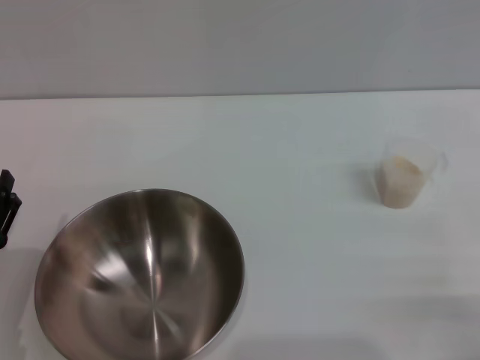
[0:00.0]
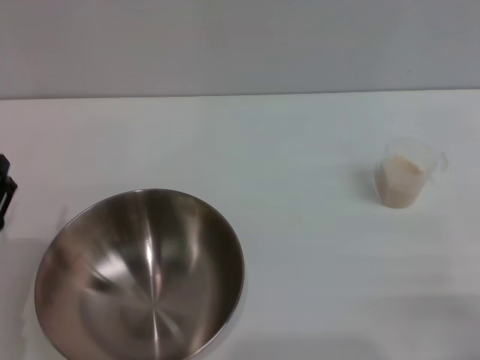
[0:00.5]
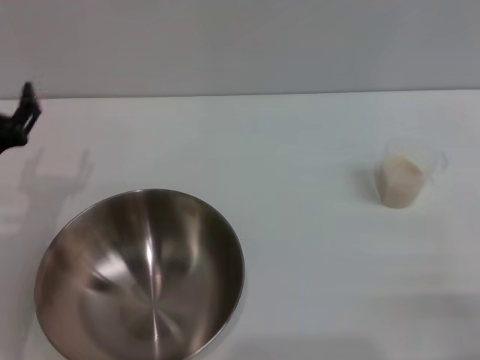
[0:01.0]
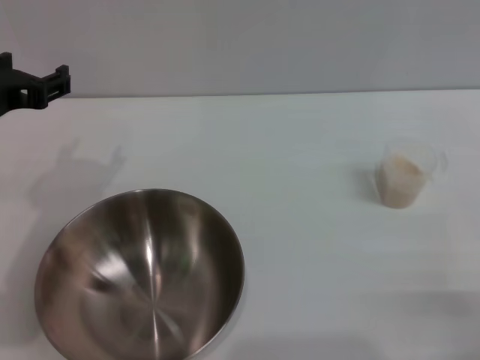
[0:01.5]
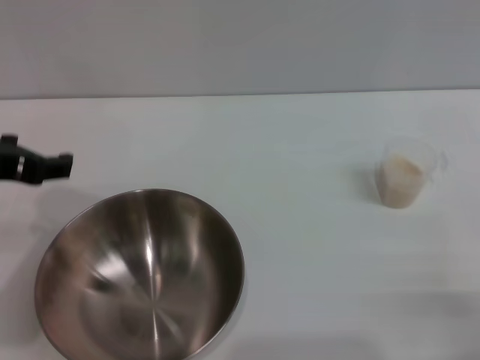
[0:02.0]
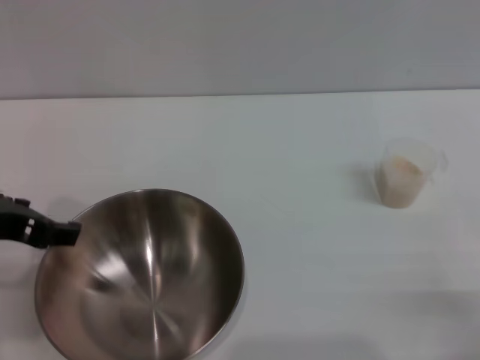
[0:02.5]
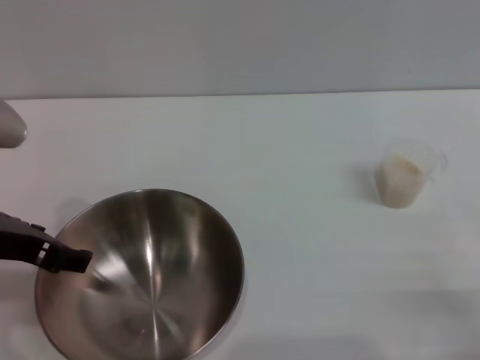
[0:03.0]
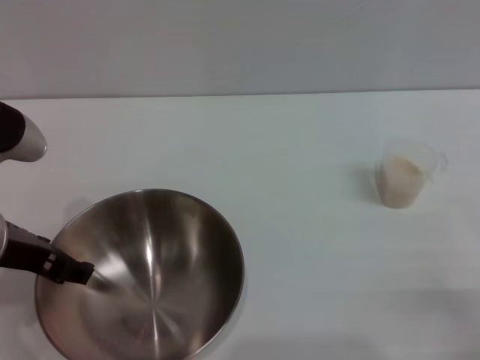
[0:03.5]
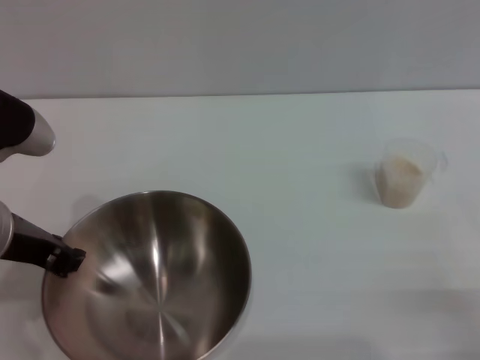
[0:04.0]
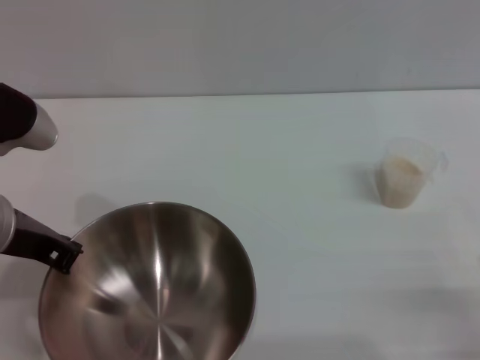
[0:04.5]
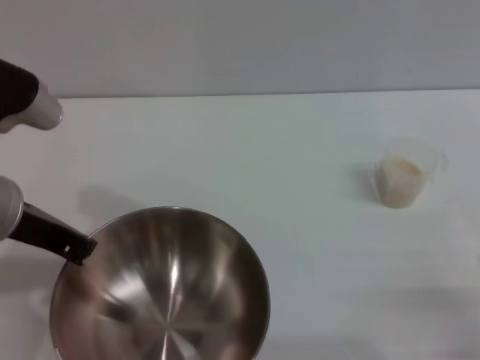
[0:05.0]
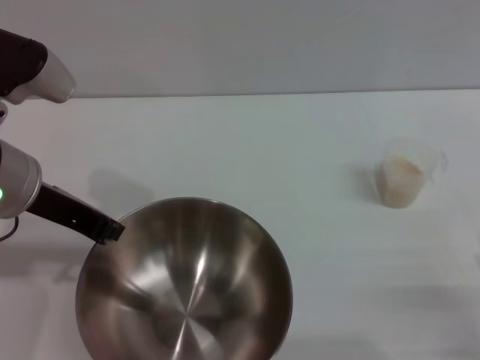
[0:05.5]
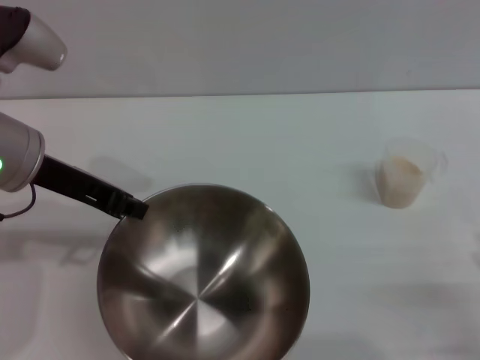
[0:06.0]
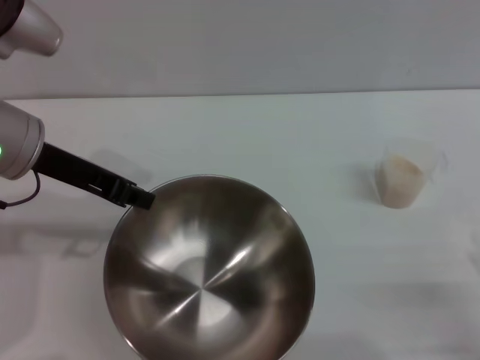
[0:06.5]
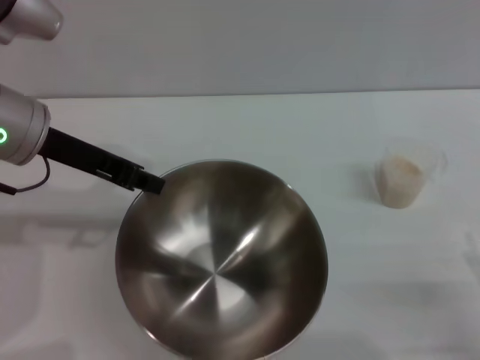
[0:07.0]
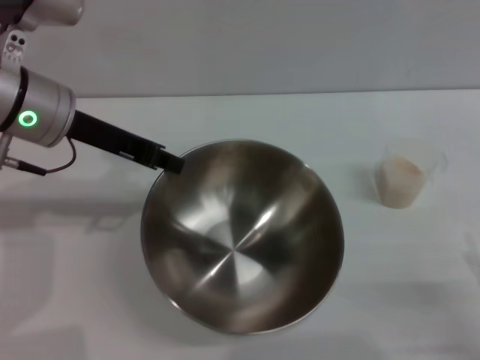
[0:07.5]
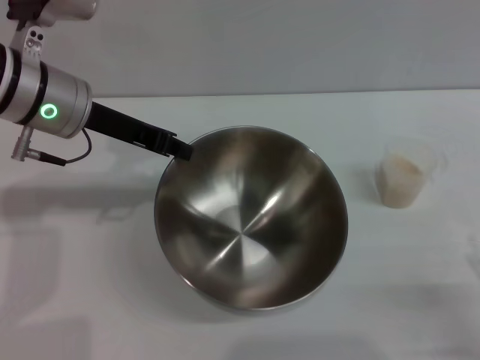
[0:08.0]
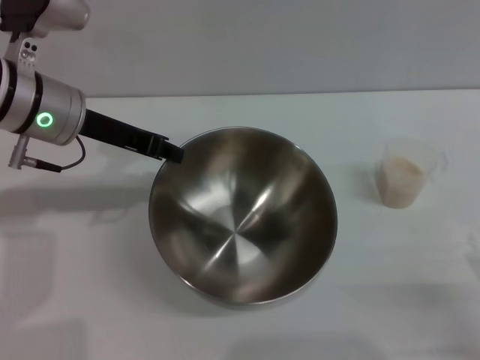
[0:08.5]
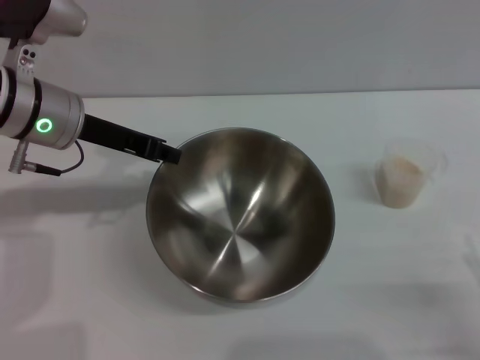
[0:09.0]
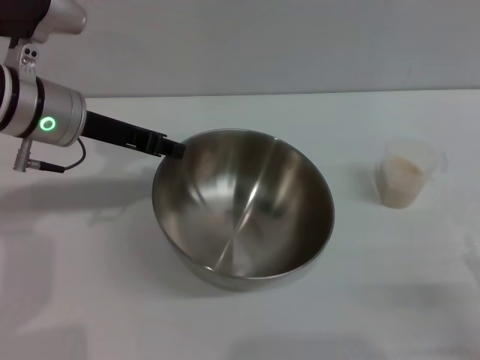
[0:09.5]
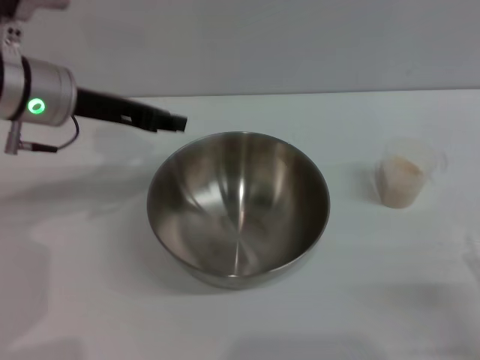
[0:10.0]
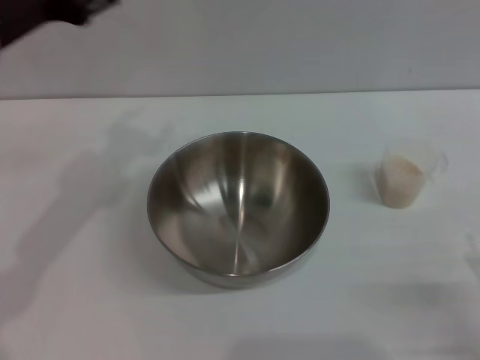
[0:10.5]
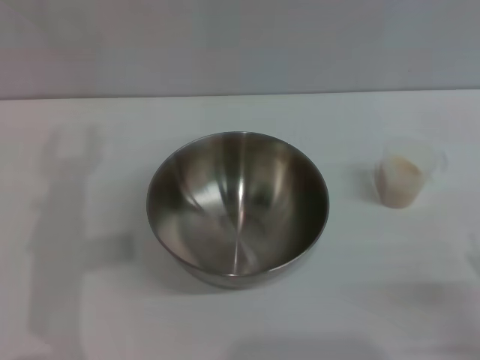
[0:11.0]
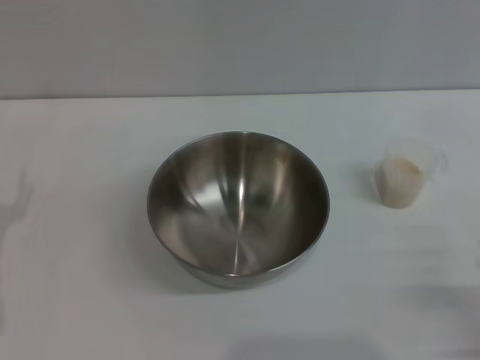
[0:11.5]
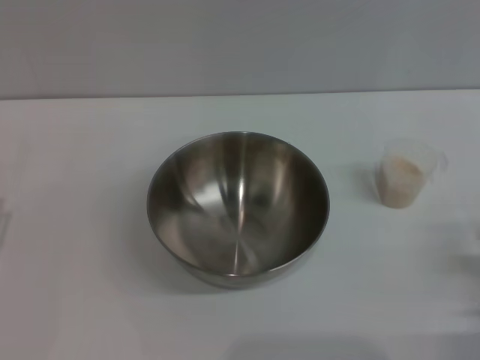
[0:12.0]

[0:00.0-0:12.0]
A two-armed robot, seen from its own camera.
Task of the whole recording: Place the bowl in the middle of the table with one hand and pour the rice from the grain cup into it with the other hand.
Step, 0:00.0 to 0:06.0: Pick up the bowl with the left gripper.
Step, 0:06.5 to 0:09.5: Place the bowl in the center of view with the left gripper.
0:00.0 to 0:02.0: The left gripper moves upward, about 20 cm.
0:04.0 to 0:06.0: The left gripper shifts some 5 cm forward, and closes.
0:06.0 to 0:08.0: The left gripper shifts roughly 5 cm forward.
0:08.0 to 0:10.0: The grippers make only small movements.
0:10.0 to 0:12.0: The left gripper travels backward, downward and to the left by about 25 cm, and opens up; the right gripper ends up approximately 5 cm from where it was.

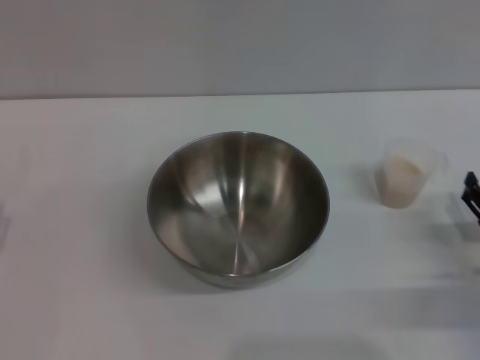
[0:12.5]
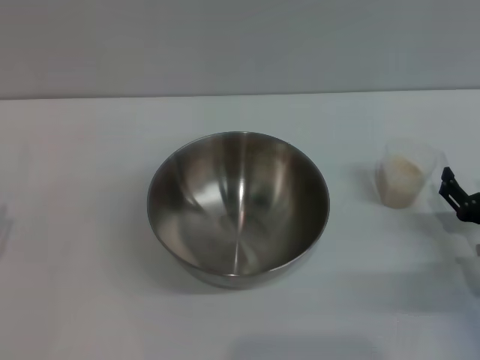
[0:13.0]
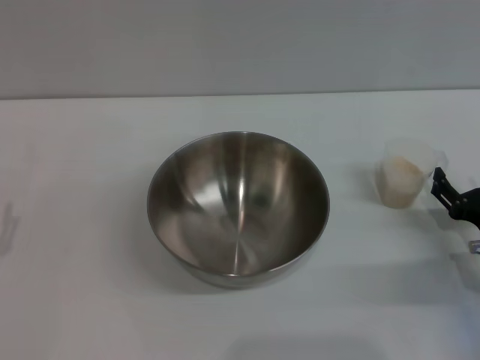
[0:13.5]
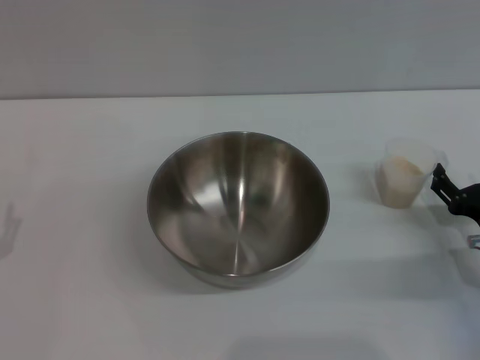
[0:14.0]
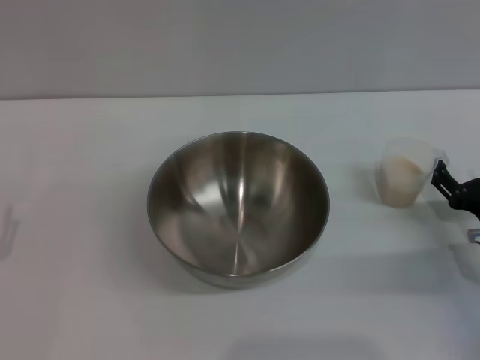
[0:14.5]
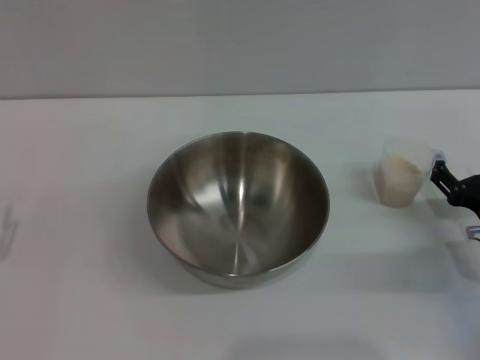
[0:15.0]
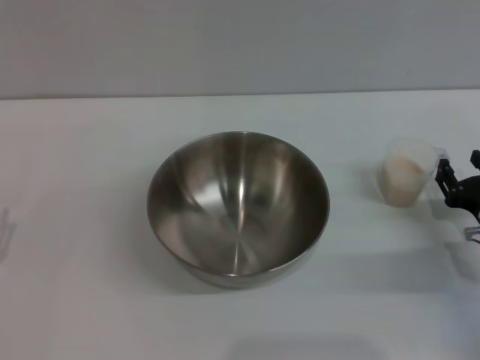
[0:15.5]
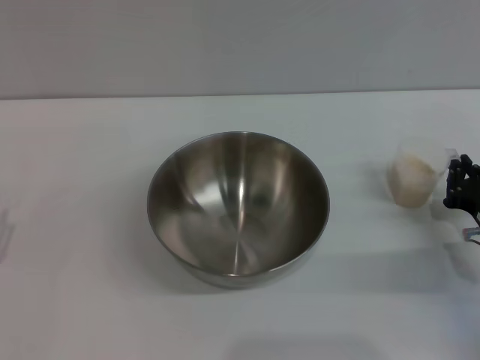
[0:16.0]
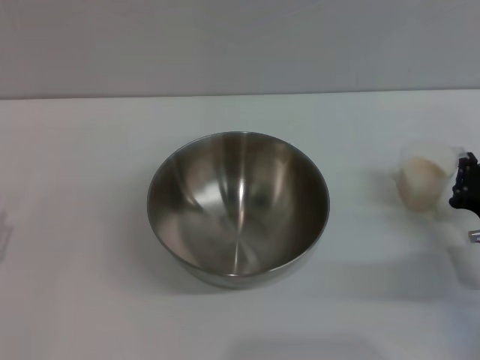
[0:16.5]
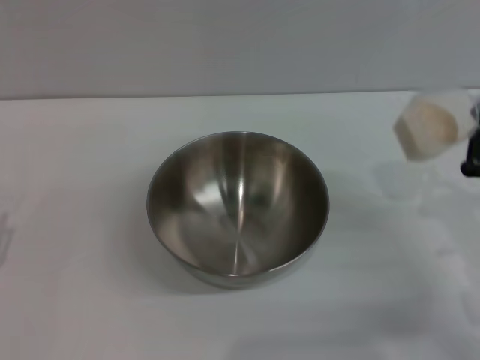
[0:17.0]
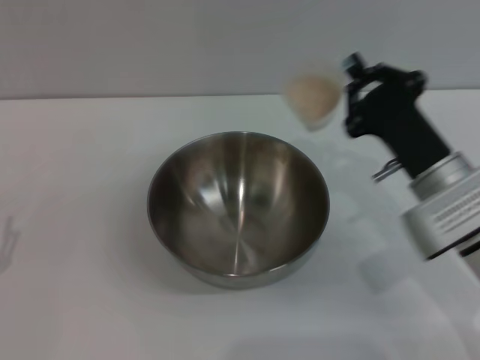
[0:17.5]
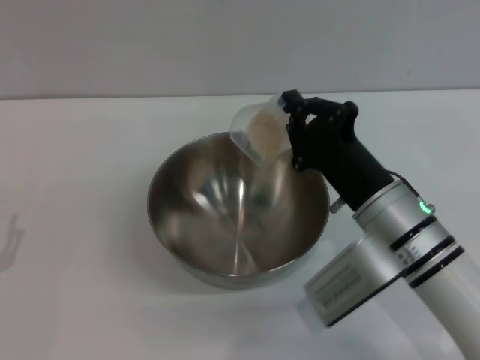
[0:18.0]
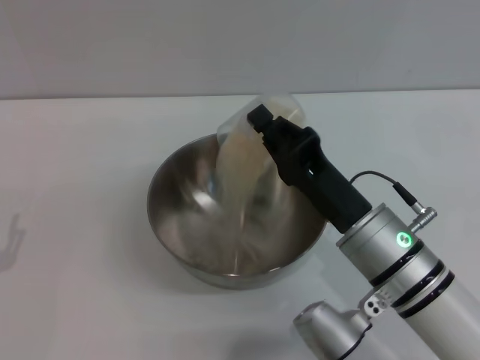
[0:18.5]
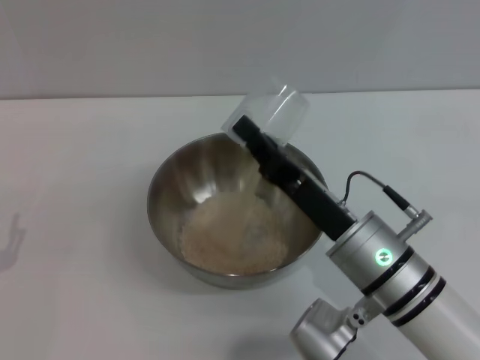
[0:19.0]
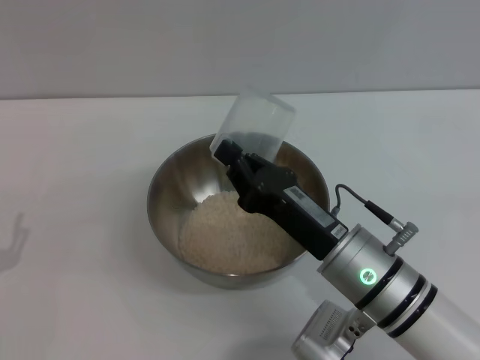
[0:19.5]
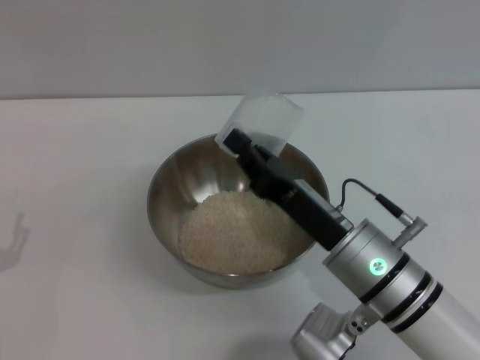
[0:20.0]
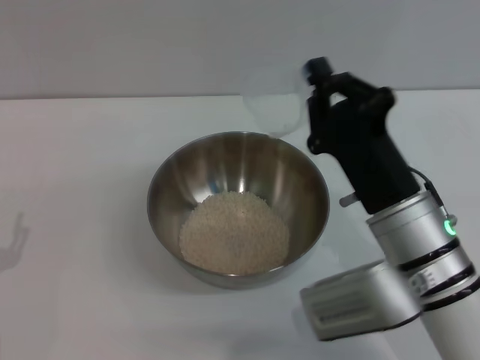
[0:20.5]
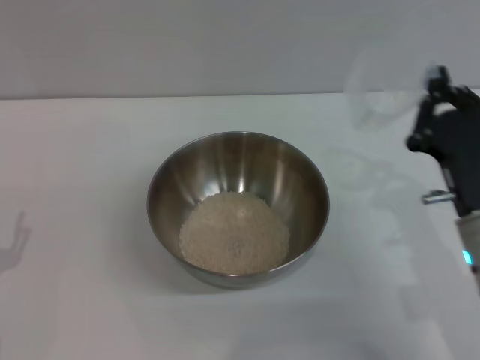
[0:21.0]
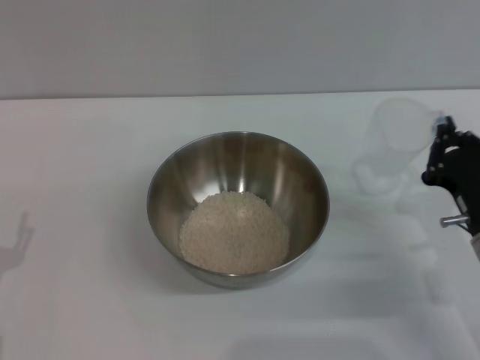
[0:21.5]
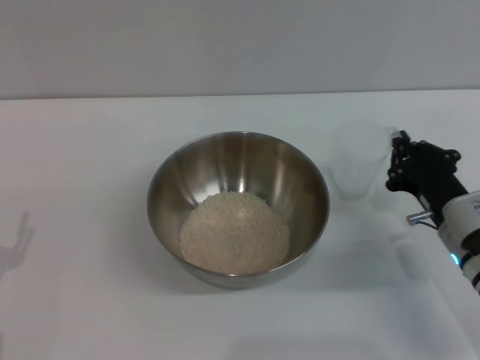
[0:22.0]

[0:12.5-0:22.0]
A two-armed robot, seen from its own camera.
Task of the whole recording: Place the bowl in the middle of the table with one hand and pour the rice from the grain cup into it with the other hand.
Step, 0:12.5 to 0:16.5: Pick up the cup with rice in it with the right gripper.
Step, 0:17.5 to 0:20.0: Pour the rice from the cup into the bowl with the right gripper.
0:12.5 to 0:14.5: There are only small adjustments of the grippers.
0:14.5 to 0:16.5: The right gripper closes its fingers.
0:16.5 to 0:18.0: The right gripper moves to the left, some 15 cm.
0:20.0 to 0:22.0: The right gripper travels to the right by about 10 cm.

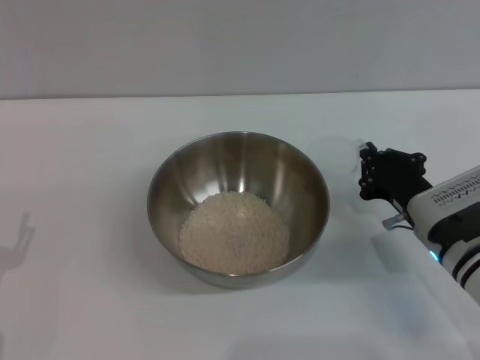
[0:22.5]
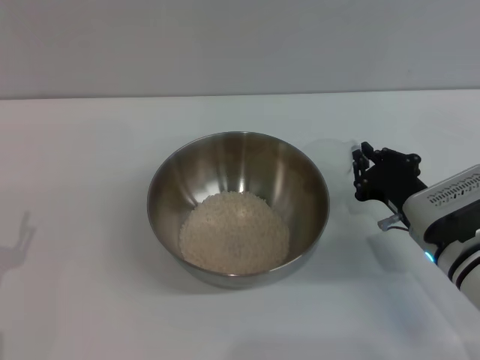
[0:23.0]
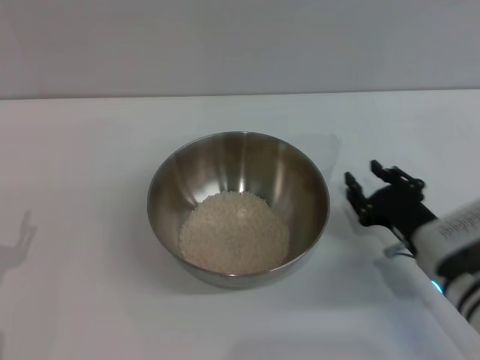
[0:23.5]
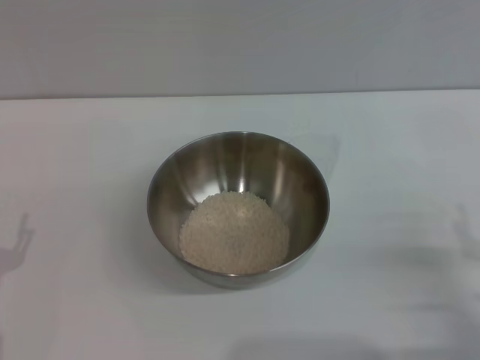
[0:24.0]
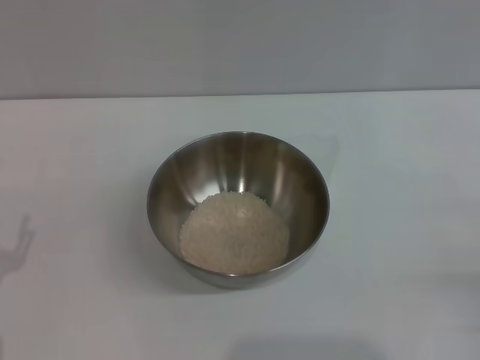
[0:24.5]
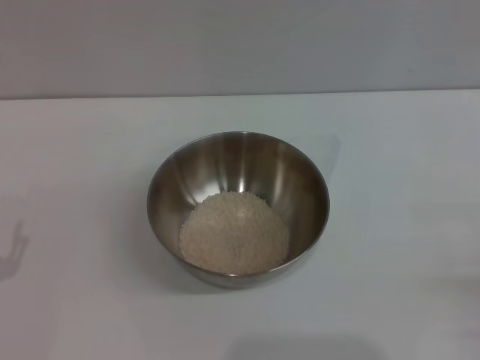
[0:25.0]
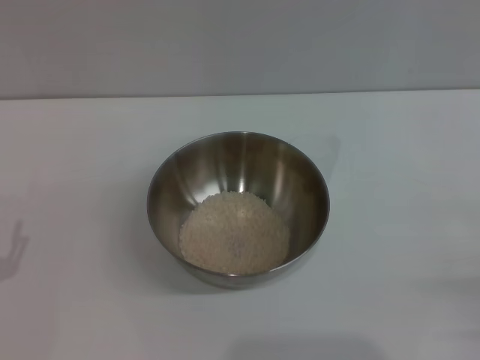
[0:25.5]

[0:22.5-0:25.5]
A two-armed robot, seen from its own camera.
Task of the whole recording: Place the bowl in the middle of the table with one hand and pour the rice from the grain cup into it with the other hand.
0:22.5 to 0:24.0: The right gripper travels backward and to the right by some 15 cm, and opens.
